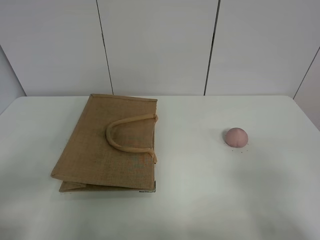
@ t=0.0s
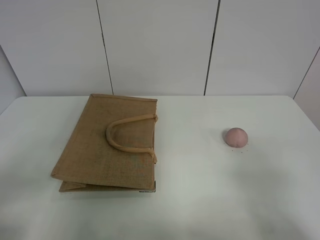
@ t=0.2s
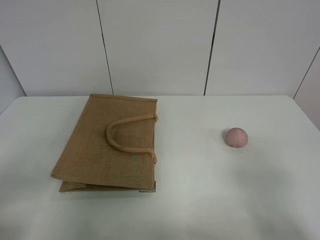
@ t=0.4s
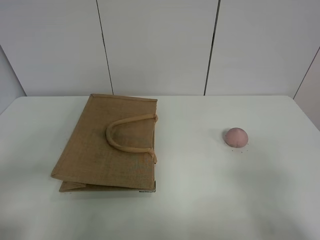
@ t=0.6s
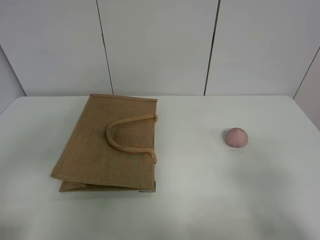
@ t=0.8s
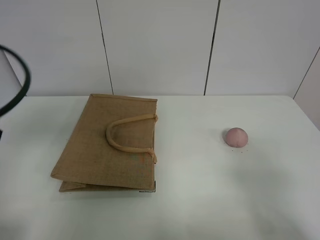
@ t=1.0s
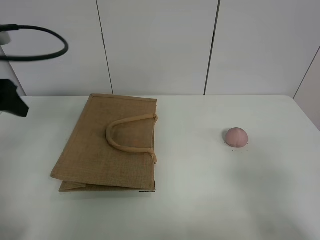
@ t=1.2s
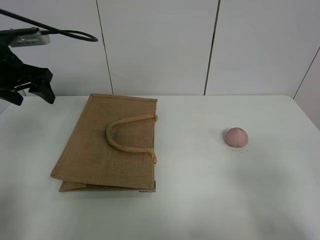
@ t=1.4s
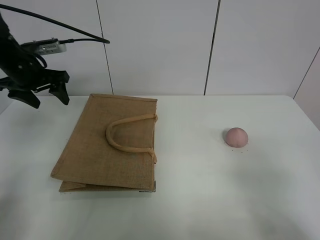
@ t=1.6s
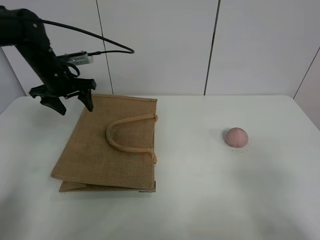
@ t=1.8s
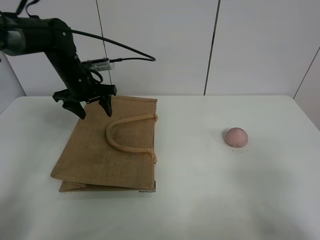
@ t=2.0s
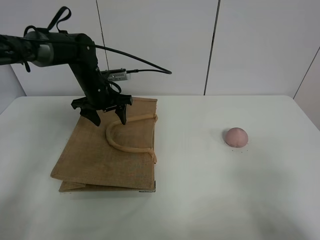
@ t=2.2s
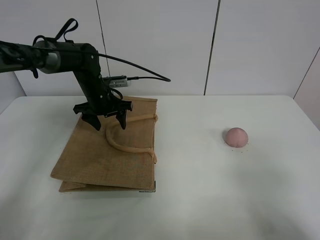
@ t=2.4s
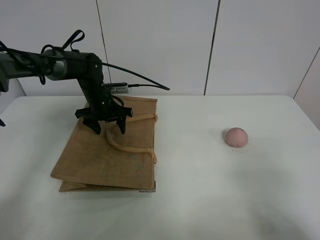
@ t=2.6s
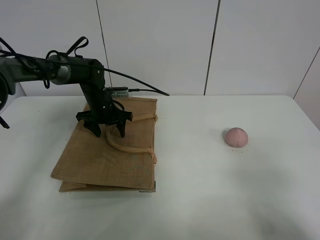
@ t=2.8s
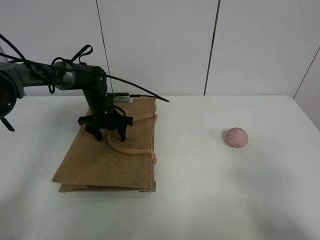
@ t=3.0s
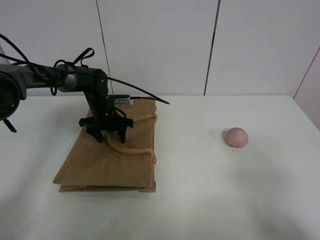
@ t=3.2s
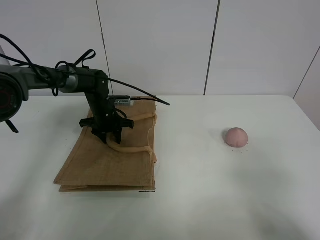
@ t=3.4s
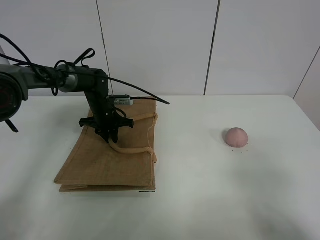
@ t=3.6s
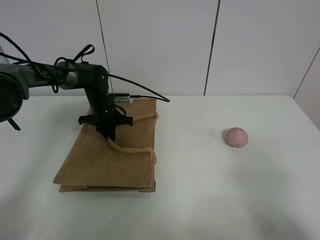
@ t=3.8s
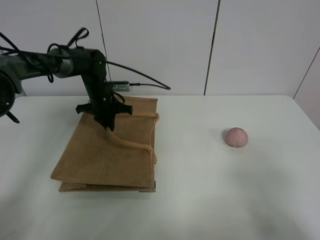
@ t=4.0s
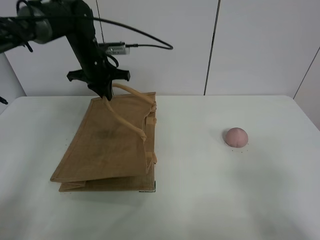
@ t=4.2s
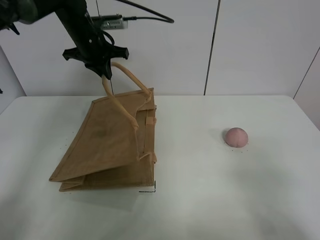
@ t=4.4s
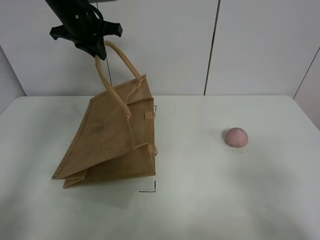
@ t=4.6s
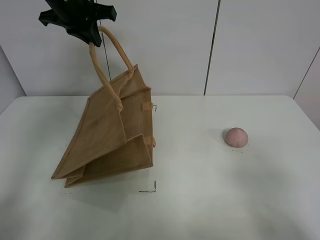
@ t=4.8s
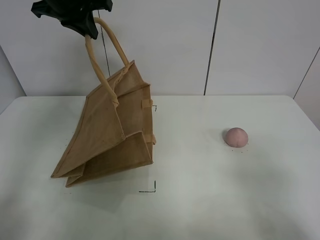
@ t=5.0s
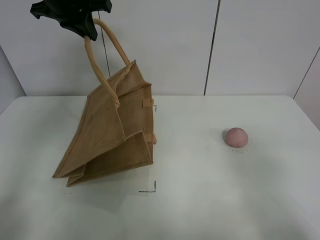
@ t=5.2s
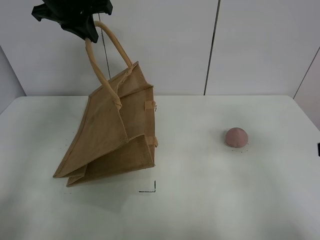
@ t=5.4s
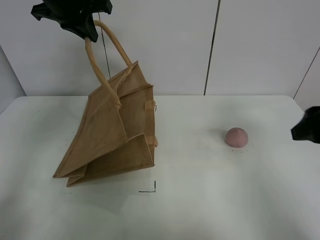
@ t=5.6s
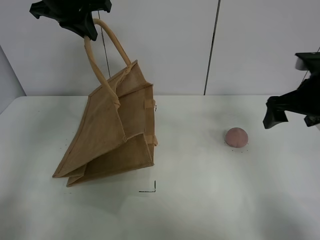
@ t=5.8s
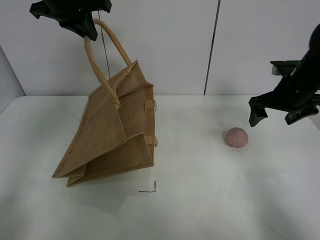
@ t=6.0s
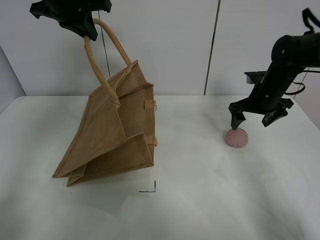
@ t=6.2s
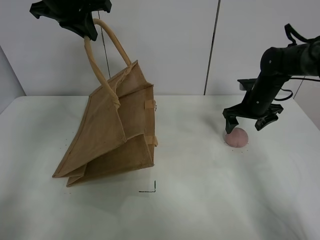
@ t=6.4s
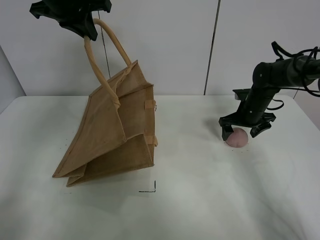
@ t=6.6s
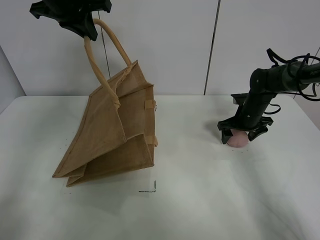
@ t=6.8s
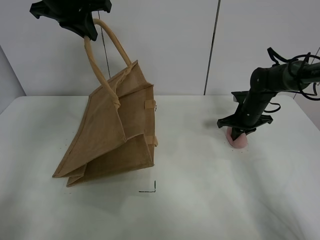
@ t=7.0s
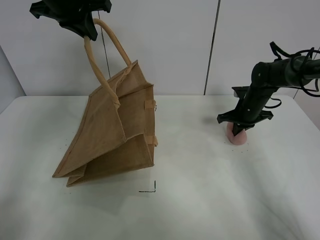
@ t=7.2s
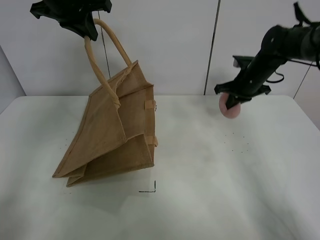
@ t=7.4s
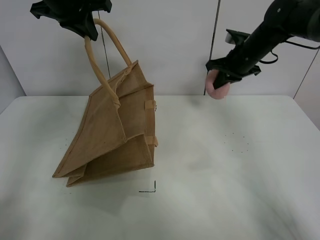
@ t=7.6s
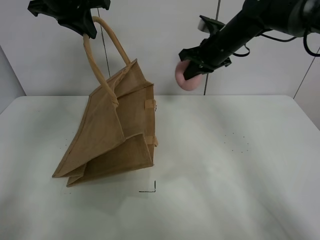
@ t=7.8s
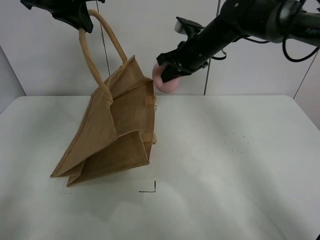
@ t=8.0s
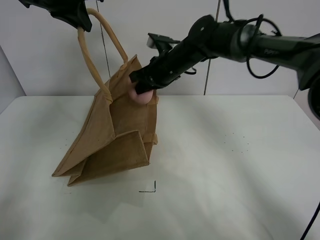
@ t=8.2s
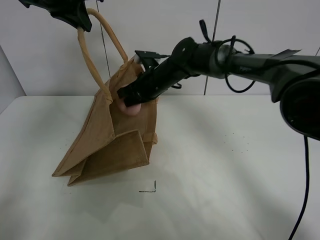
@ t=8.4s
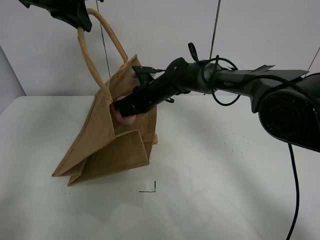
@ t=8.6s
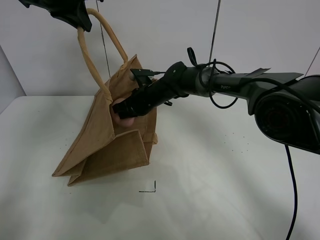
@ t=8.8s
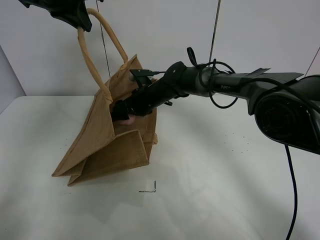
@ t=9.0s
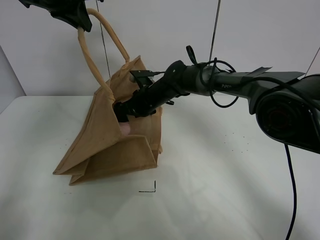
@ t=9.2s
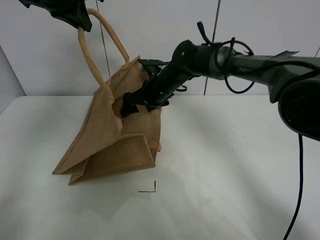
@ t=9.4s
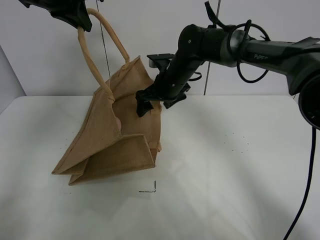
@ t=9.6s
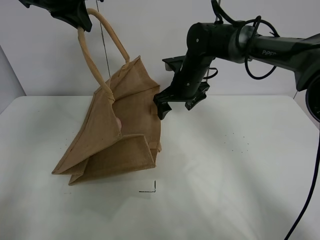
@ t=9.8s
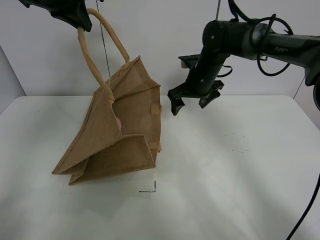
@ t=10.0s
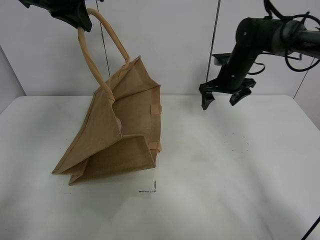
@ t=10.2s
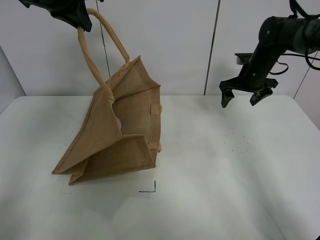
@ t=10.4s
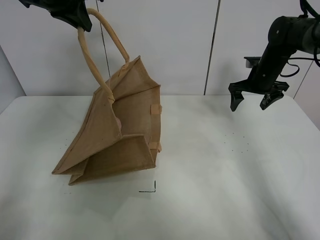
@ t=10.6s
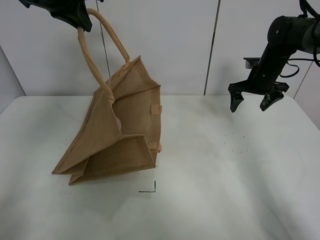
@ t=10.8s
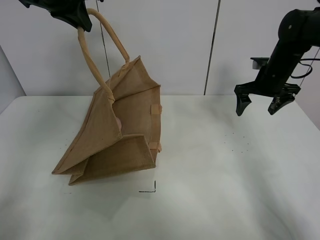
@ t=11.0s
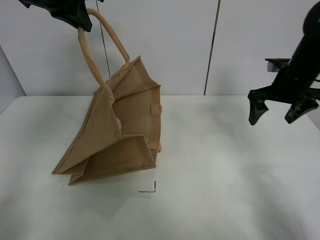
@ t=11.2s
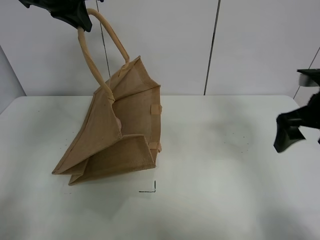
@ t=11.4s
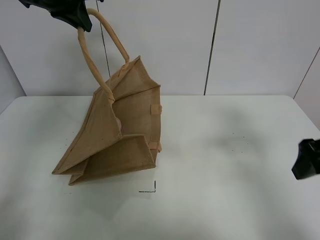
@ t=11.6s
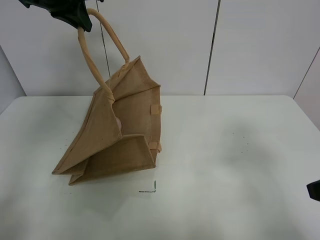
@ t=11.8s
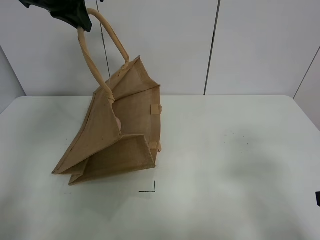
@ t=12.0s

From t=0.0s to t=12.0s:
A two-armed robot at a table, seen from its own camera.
Task of the whole recording: open the brown linen bag and put the peach in the bag.
Step, from t=0.0s to t=4.8s: Lift the handbag with left gripper.
Step, from t=5.0s to t=7.0s: Grasp the peach with right gripper.
Step, from t=7.2s to t=9.8s: Place the peach in the handbag with right gripper.
From t=0.0s to t=1.6s: The left gripper moves forward, approximately 40 cm.
From t=1.6s to t=3.0s: The left gripper moves downward and to the right, about 20 cm.
From t=3.0s to t=4.4s: The left gripper travels upward by some 20 cm, and closes up.
From t=4.4s to t=6.0s: The left gripper moves upward and backward, roughly 10 cm, while the right gripper shifts approximately 35 cm forward.
From t=6.0s to t=7.6s: The right gripper shifts some 15 cm forward and to the left, reaches approximately 15 cm downward, then returns, and closes its fingers.
From t=7.6s to t=9.0s: The right gripper heads to the left and downward, covering some 25 cm, and opens its fingers.
From t=9.0s to t=10.4s: The right gripper goes approximately 25 cm to the right.
From t=10.4s to t=12.0s: The right gripper heads backward, covering approximately 40 cm.

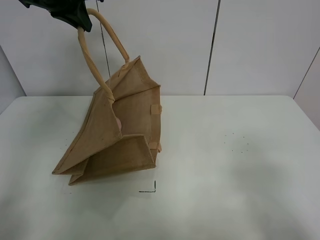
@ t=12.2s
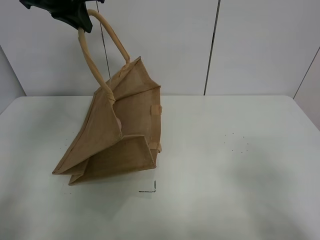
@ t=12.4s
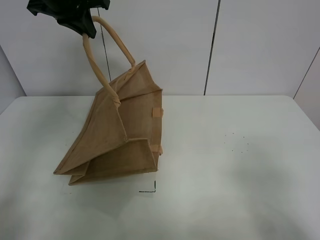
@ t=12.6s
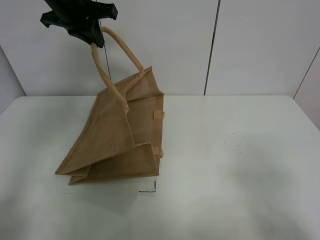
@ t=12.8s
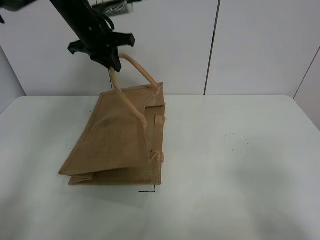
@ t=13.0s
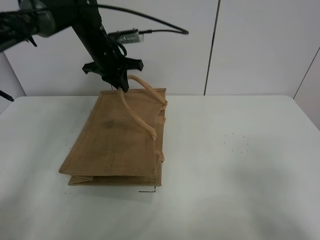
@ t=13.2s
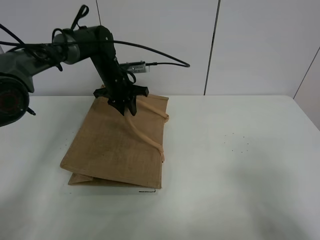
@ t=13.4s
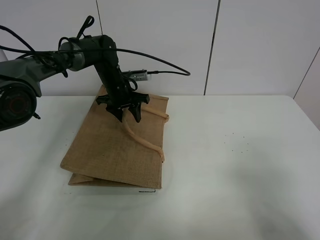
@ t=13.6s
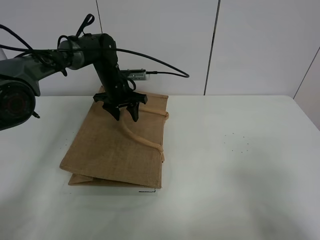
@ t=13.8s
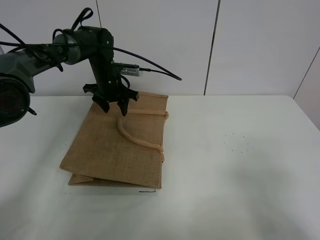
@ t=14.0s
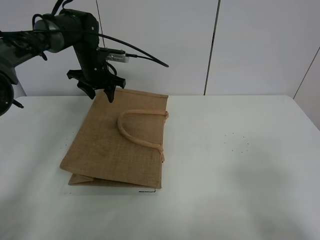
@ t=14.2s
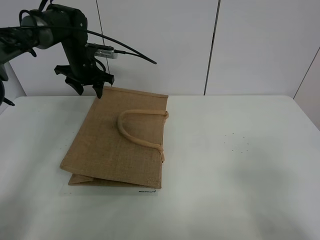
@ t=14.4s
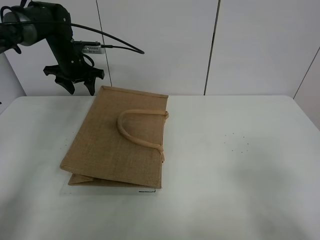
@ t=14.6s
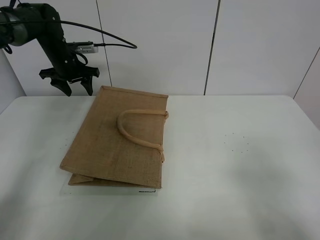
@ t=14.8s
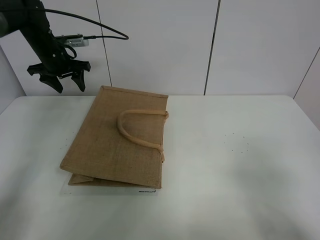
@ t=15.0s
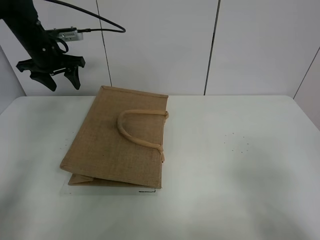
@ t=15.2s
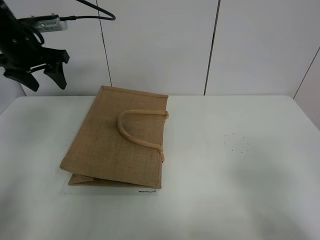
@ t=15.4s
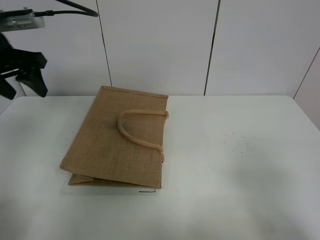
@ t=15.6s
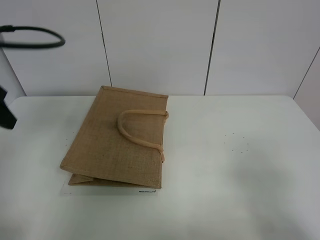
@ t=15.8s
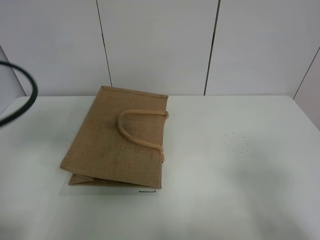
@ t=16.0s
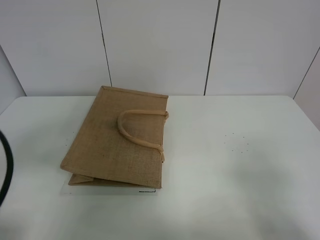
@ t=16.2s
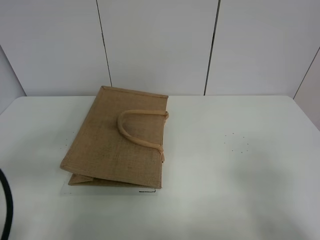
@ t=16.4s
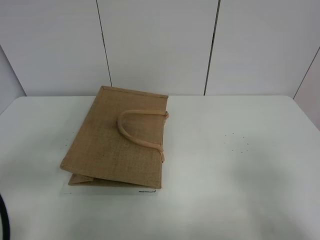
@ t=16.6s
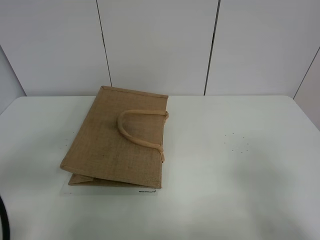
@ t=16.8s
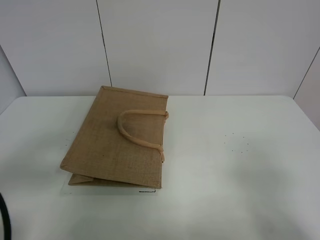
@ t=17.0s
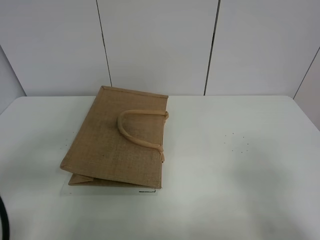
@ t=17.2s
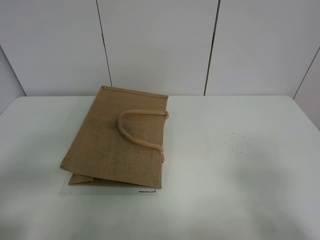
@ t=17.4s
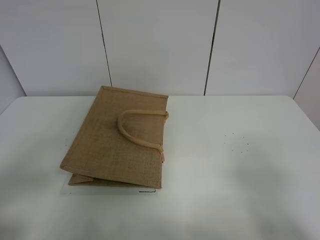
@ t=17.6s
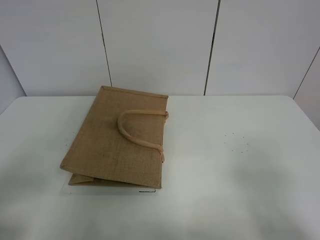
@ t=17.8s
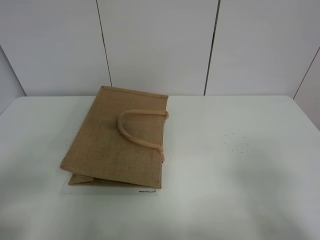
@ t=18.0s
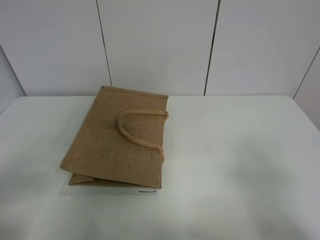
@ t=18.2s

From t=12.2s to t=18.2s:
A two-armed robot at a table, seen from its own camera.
Task of the whole recording: open the brown linen bag and put the peach in the bag.
Step, from t=12.2s to t=14.4s: Put down the handbag with left grippe.
From t=12.2s to t=13.8s: The left gripper shifts about 25 cm downward, and opens up.
From t=13.8s to t=15.2s: The left gripper is displaced to the left and upward by approximately 20 cm.
From t=15.2s to t=16.6s: The left gripper goes about 40 cm backward.
